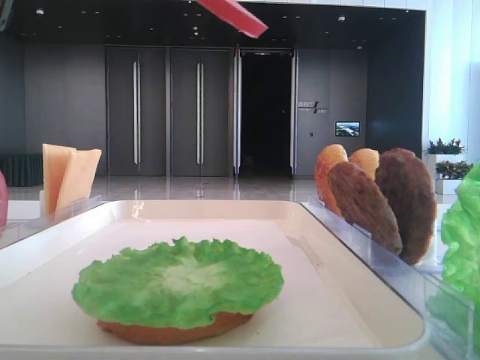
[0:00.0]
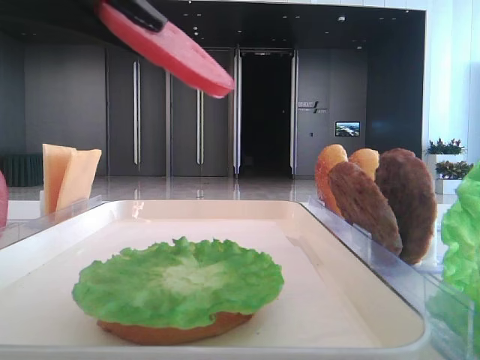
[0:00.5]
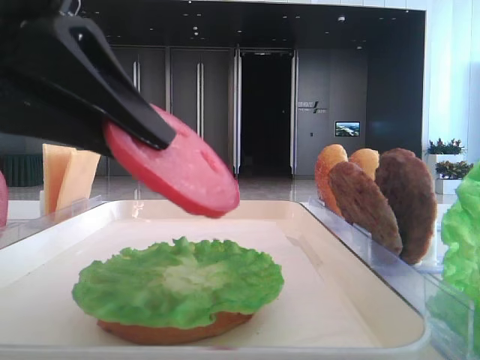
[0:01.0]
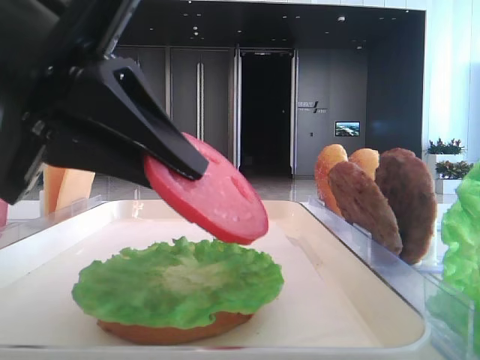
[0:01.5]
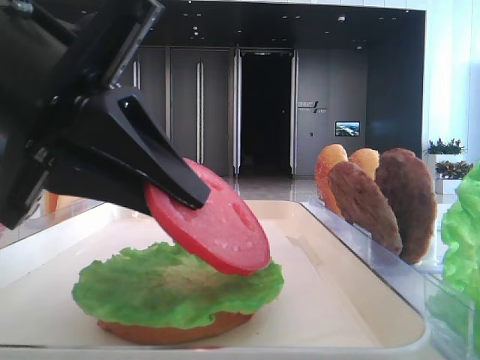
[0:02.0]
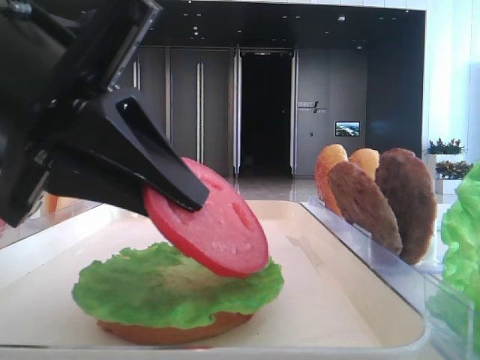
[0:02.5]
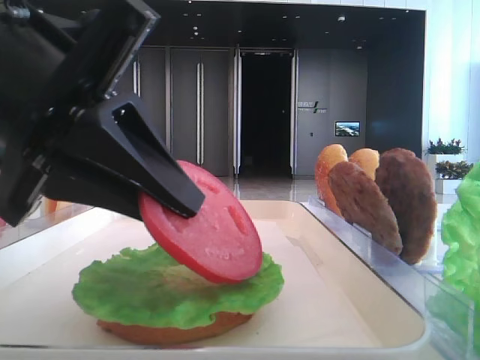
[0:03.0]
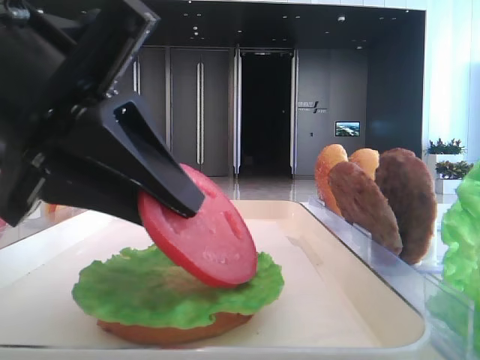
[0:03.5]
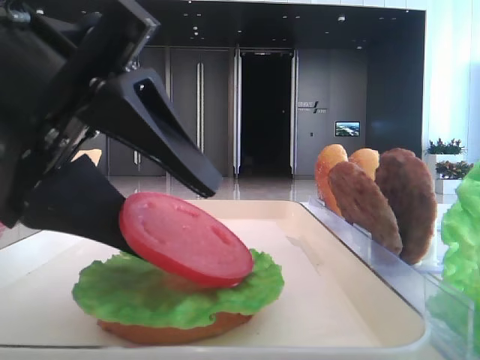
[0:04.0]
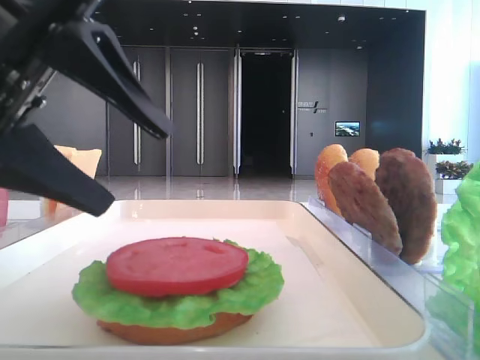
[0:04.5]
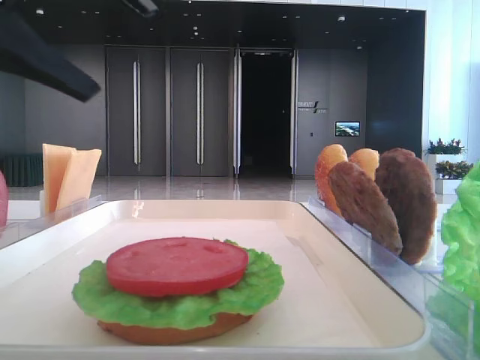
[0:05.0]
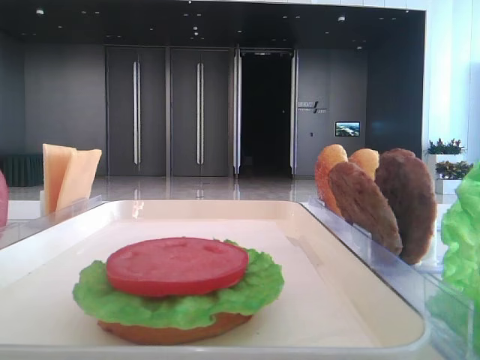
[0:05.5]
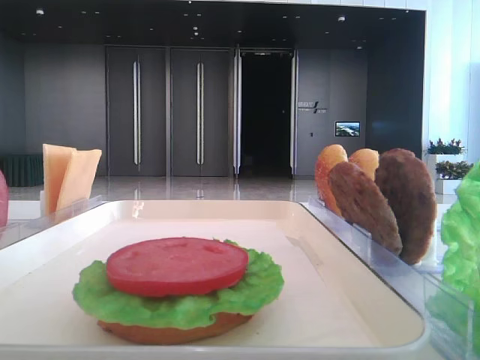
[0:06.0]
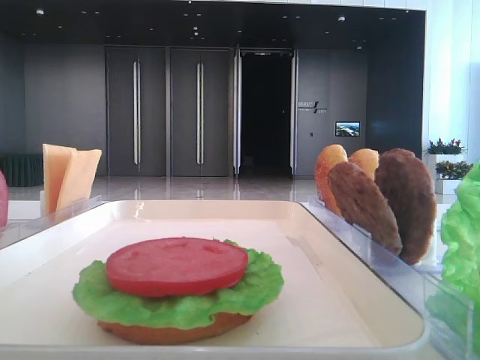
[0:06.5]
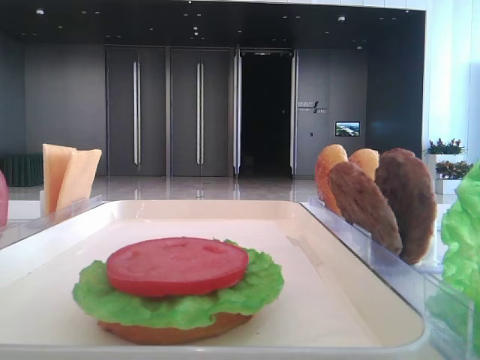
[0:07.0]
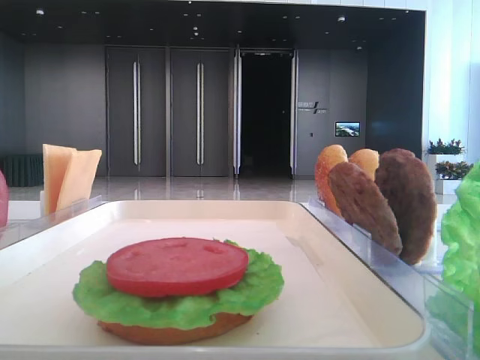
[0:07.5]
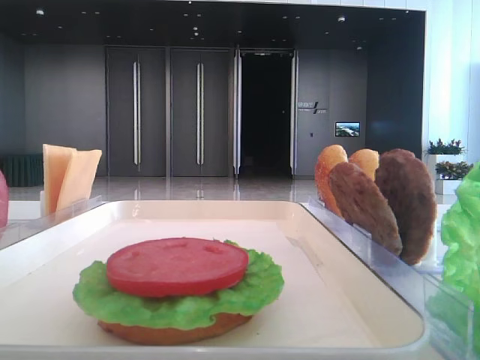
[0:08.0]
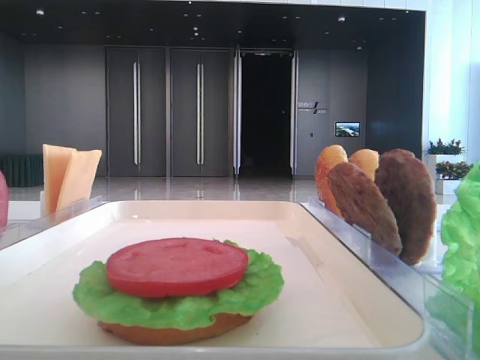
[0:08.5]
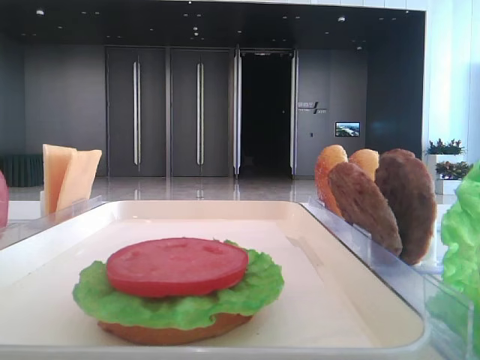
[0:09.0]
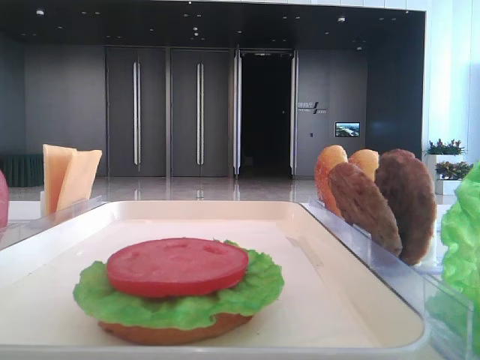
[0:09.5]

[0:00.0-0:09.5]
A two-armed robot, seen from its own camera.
Step, 0:00.0 to 0:04.0: Place the tomato slice on the lettuce leaf with the left hand.
0:00.0 to 0:02.0: The left gripper shifts roughly 10 cm downward.
0:02.0 to 0:04.0: The left gripper opens up.
0:04.0 to 0:05.5: The left gripper heads upward and to the left, covering about 20 cm.
